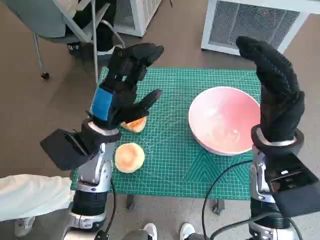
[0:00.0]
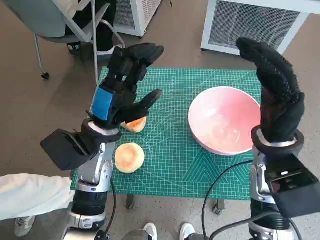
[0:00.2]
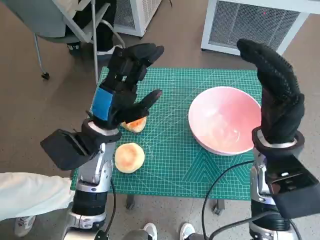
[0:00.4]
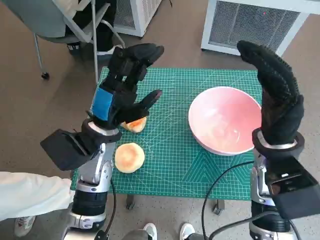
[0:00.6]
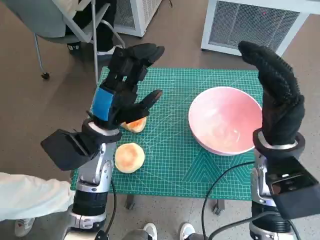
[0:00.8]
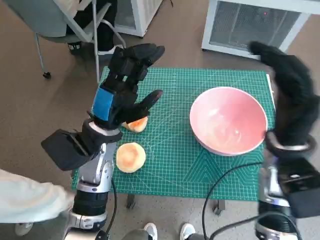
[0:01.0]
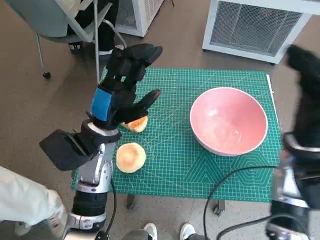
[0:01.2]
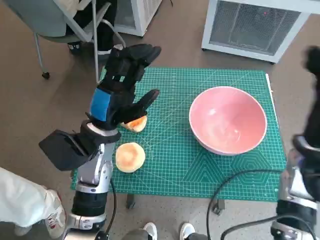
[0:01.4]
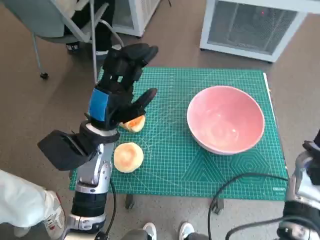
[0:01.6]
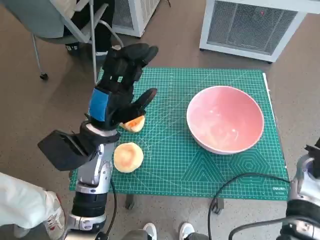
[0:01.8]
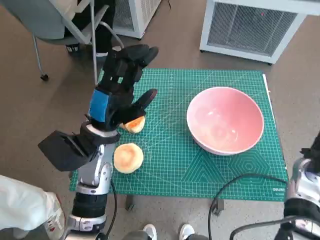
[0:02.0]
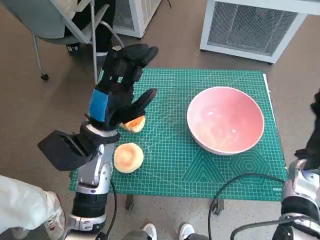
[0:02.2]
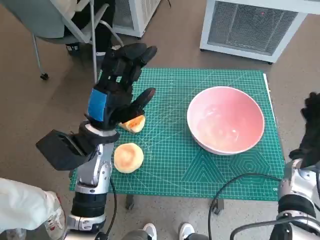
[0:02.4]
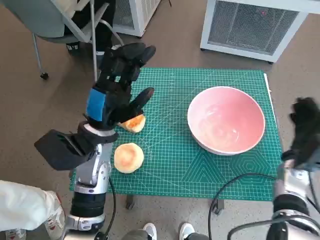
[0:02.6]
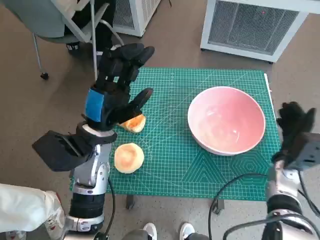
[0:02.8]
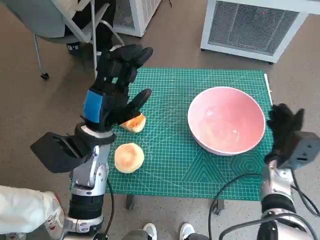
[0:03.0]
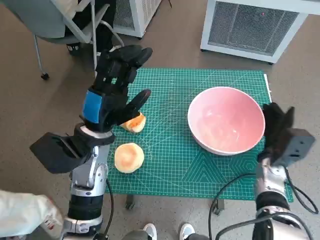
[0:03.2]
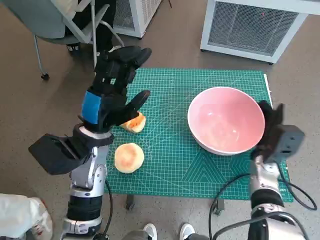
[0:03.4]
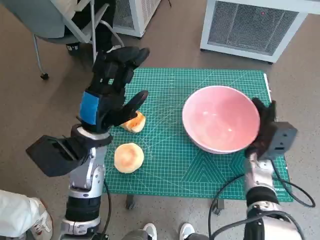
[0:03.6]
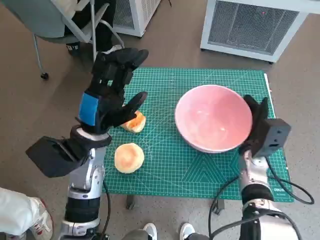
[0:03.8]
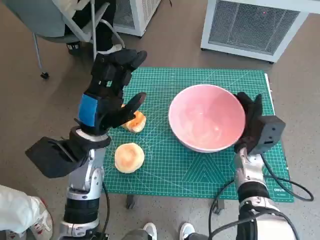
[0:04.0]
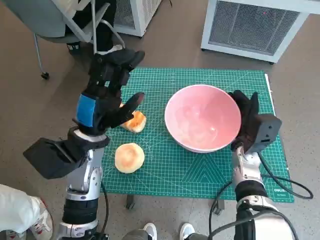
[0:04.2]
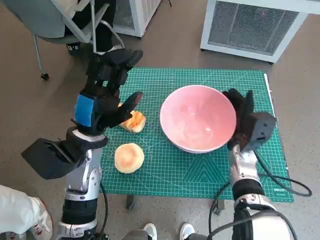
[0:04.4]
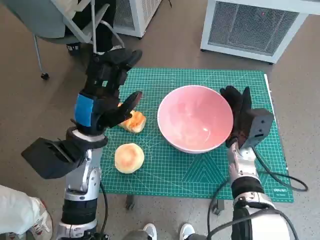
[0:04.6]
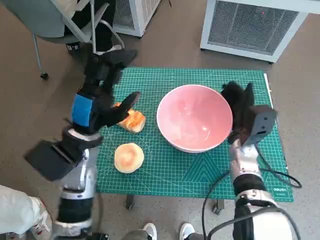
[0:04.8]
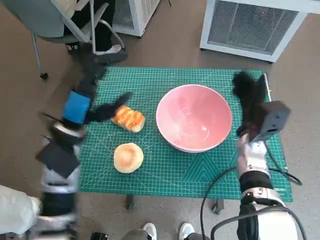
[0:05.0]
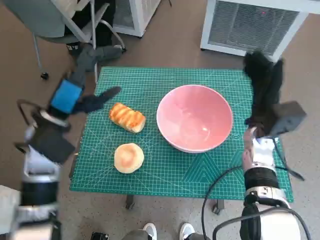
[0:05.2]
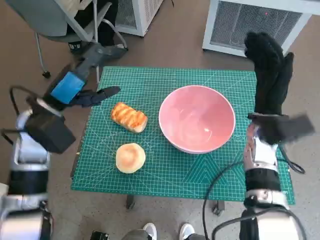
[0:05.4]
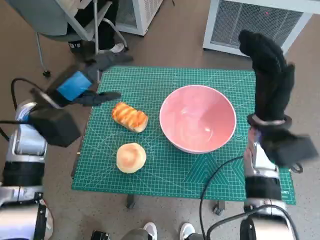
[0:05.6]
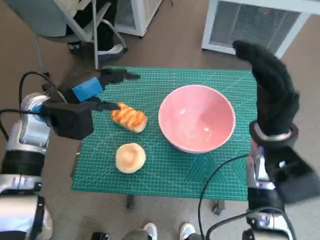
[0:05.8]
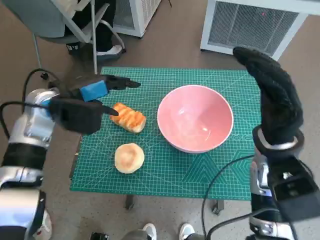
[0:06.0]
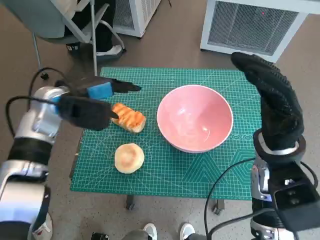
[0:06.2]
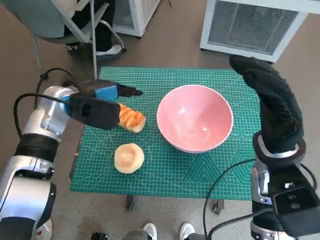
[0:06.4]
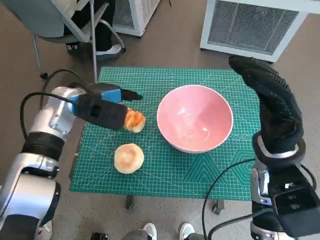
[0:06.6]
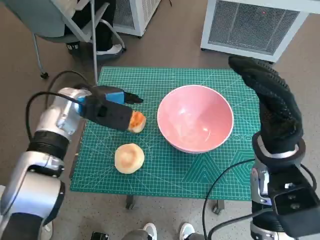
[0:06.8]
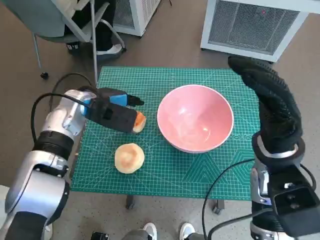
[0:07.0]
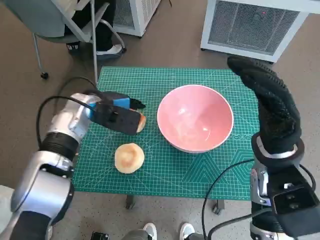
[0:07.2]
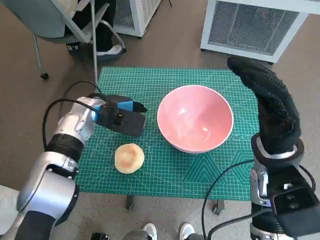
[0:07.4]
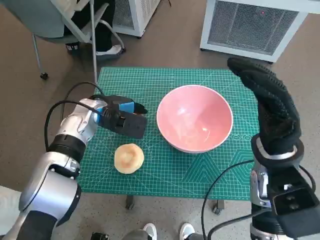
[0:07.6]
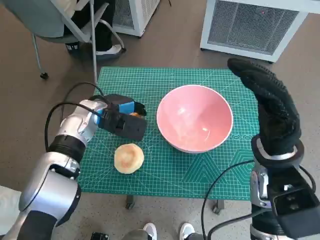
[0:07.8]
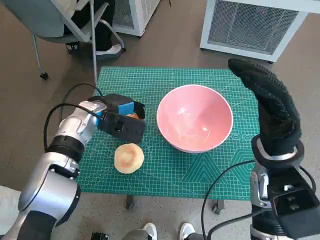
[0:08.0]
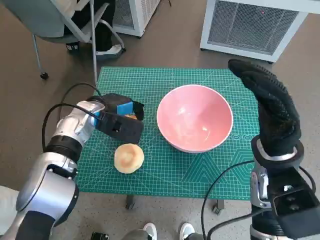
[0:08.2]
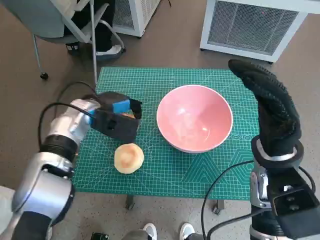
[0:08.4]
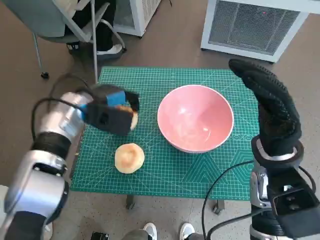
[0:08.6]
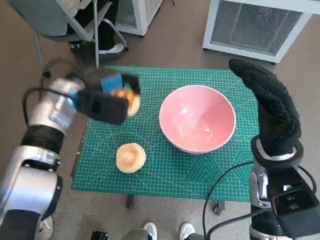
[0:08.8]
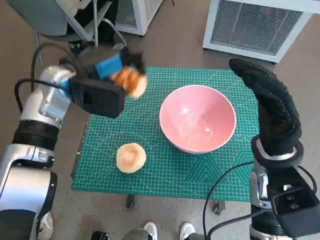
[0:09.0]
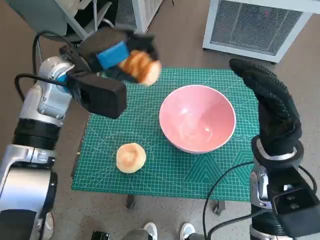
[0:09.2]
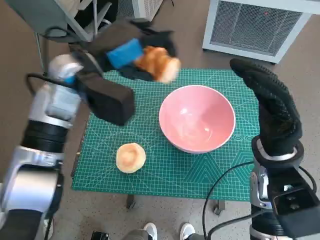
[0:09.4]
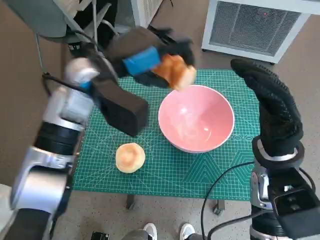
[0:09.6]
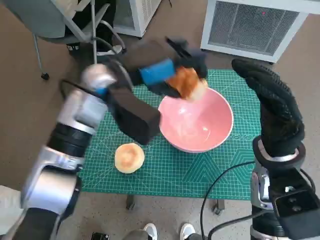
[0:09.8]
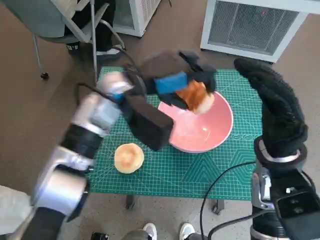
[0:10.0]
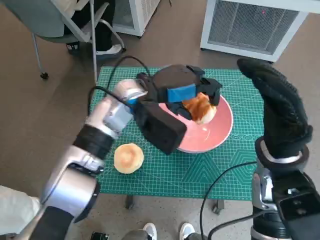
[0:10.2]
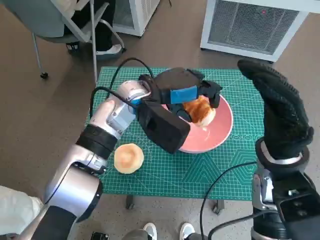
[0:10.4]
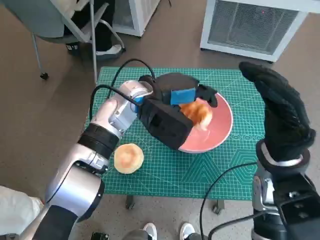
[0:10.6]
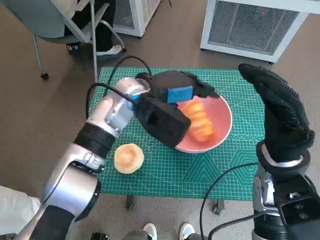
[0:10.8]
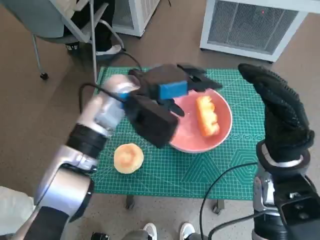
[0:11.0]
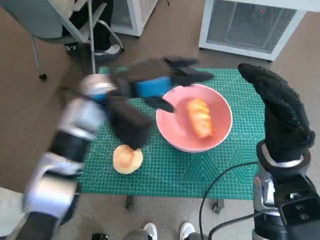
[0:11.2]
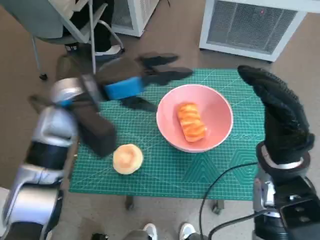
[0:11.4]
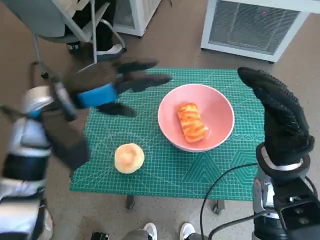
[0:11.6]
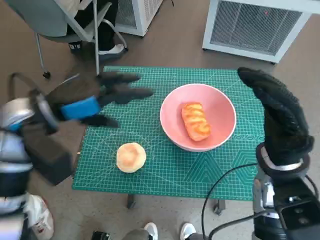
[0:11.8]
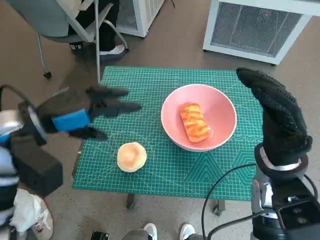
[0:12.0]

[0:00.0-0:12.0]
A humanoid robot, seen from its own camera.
Task of the whole recording: Push the bowl to the center of the table and put the bread into the bowl.
Step, 0:00.0 to 0:05.0: Move the pink bowl to the center of table with right hand.
Step, 0:05.2 to 0:08.2: Grasp the long bread with left hand.
Step, 0:08.4 to 0:11.4: Place the long bread in pink bowl with left hand.
0:01.6 to 0:03.0: The right hand heads downward, covering approximately 10 cm.
0:03.0 to 0:04.4: The right hand goes approximately 10 cm to the left.
0:04.4 to 0:06.0: The right hand is displaced upward by some 15 cm, while the left hand is displaced to the left and forward by some 10 cm.
0:06.0 to 0:07.6: The left hand goes some 10 cm downward and to the right.
0:07.6 to 0:09.0: The left hand goes about 10 cm upward.
0:09.0 to 0:10.4: The left hand shifts some 15 cm to the right.
0:10.4 to 0:12.0: The left hand is displaced to the left and backward by about 20 cm.

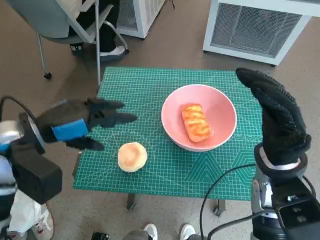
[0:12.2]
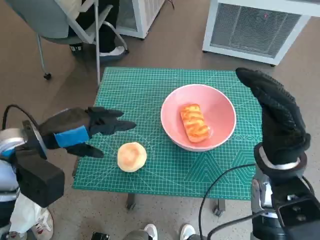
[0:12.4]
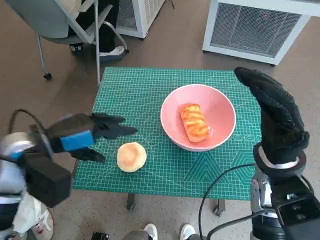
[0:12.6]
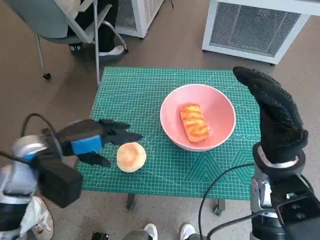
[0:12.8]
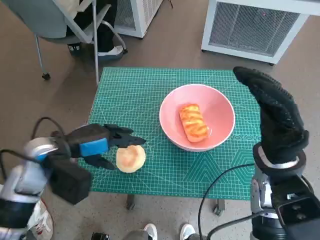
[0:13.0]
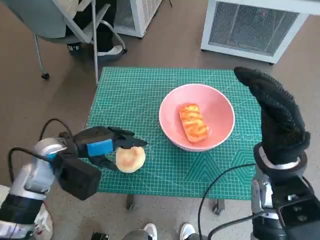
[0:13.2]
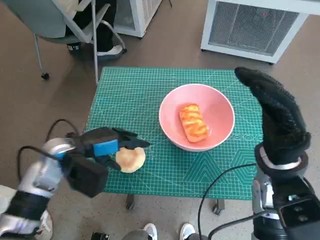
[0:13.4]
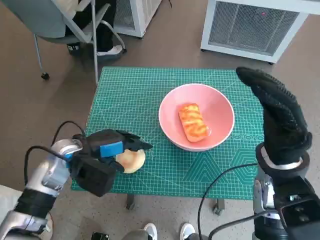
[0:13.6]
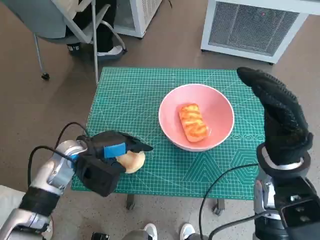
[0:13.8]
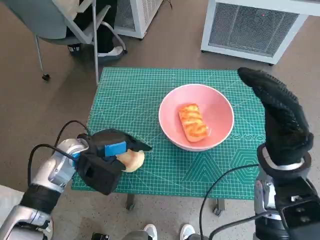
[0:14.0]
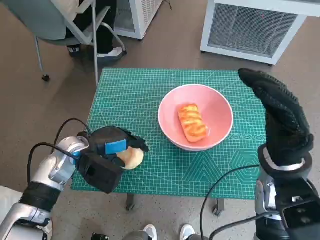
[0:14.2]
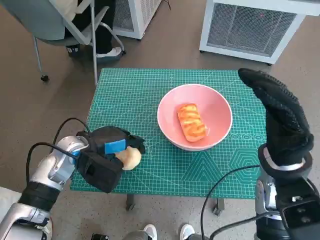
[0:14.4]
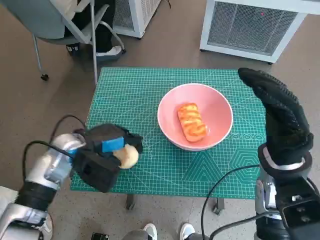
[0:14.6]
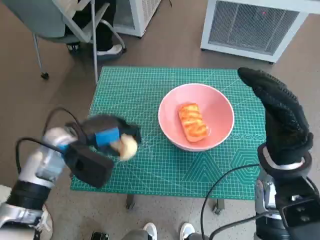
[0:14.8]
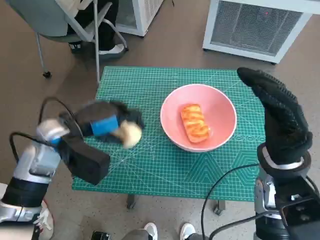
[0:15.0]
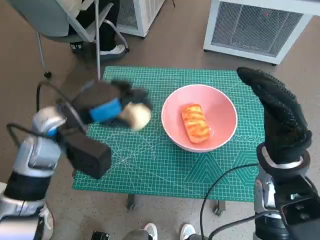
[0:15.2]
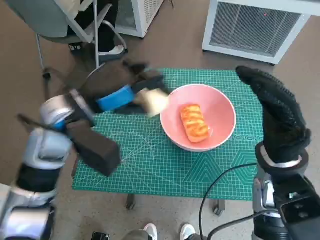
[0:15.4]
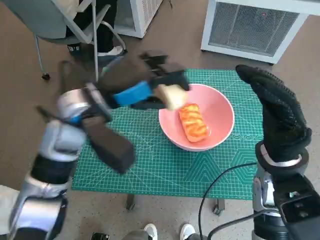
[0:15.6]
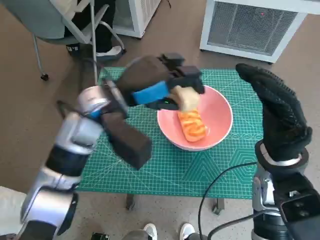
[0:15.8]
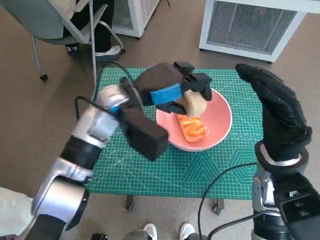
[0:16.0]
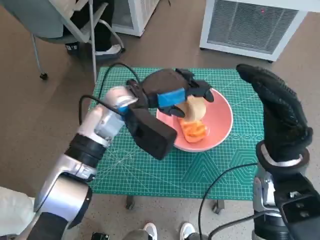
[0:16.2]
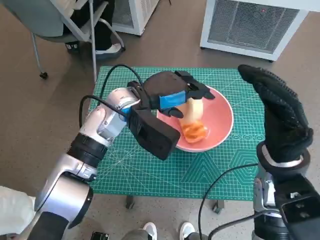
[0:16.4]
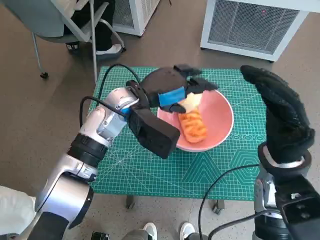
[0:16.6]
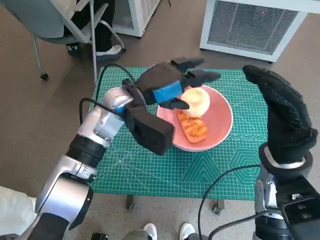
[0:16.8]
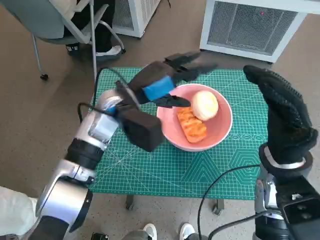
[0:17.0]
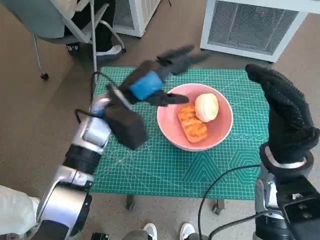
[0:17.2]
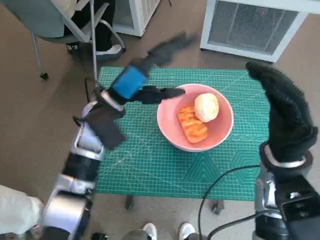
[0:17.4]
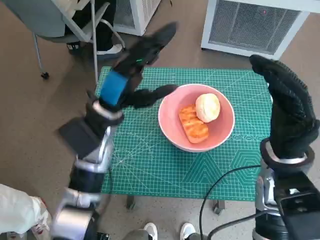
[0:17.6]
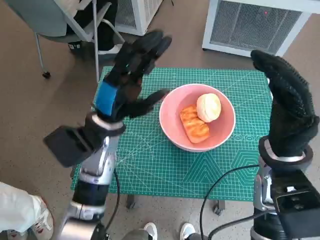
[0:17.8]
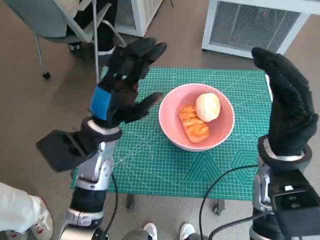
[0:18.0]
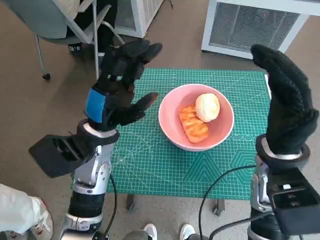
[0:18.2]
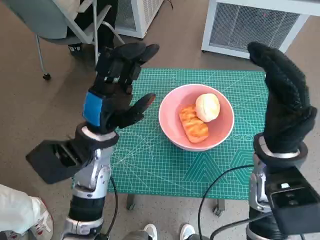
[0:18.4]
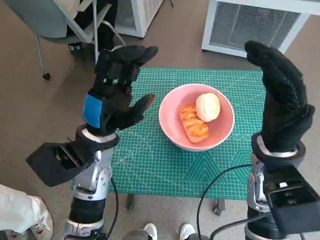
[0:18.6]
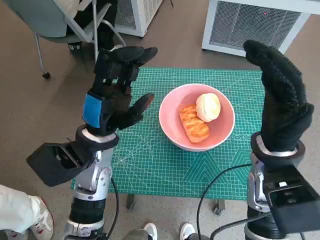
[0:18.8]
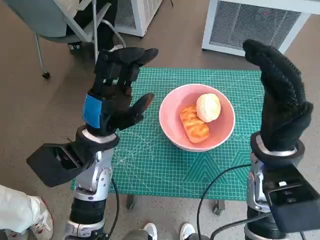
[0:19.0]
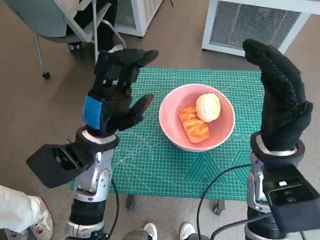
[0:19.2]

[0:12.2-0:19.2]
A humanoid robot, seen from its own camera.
Task of the whole recording: Push the bowl to the center of the table and put the bread into the bowl.
Step, 0:12.2 to 0:14.0: Grasp the round bread with left hand.
Step, 0:14.2 to 0:17.4: Place the round bread in pink bowl with left hand.
0:12.2 to 0:13.6: The left hand goes some 10 cm downward.
0:13.6 to 0:15.0: The left hand shifts roughly 5 cm upward.
0:15.0 to 0:16.4: The left hand travels to the right and forward by some 15 cm.
0:16.4 to 0:17.8: The left hand ends up approximately 5 cm from where it was.

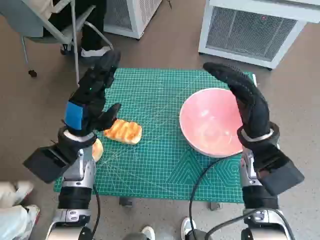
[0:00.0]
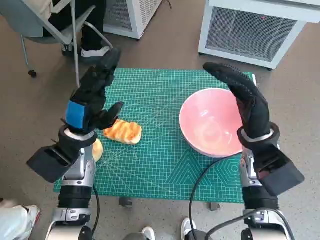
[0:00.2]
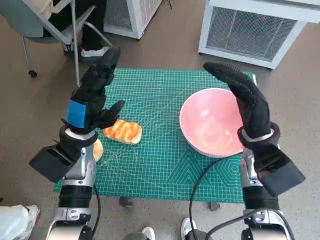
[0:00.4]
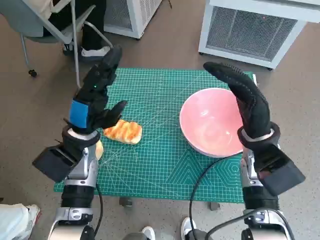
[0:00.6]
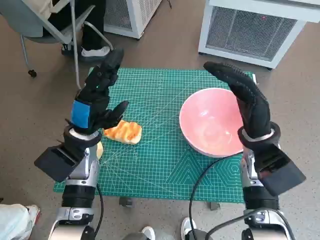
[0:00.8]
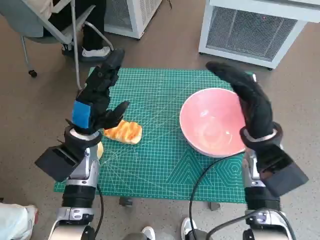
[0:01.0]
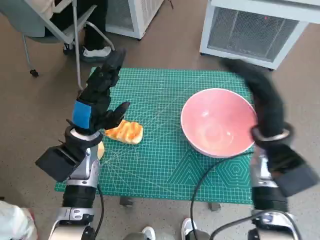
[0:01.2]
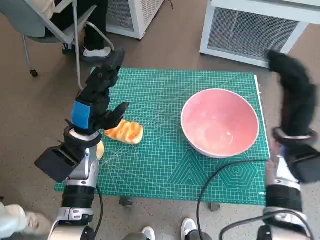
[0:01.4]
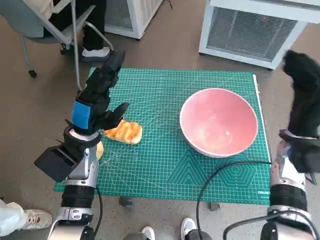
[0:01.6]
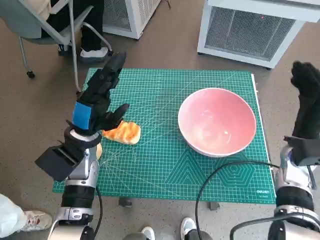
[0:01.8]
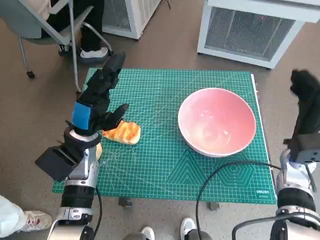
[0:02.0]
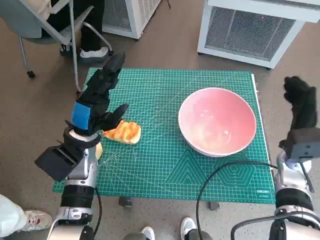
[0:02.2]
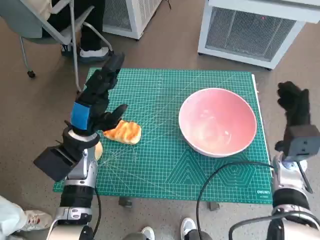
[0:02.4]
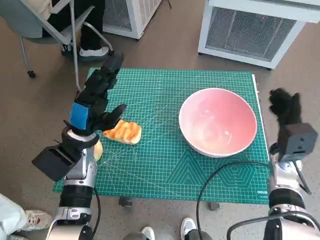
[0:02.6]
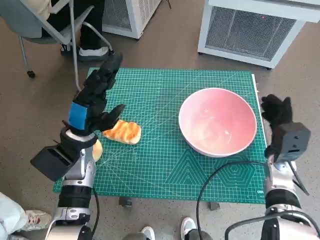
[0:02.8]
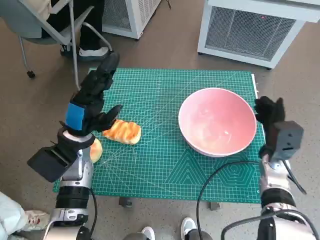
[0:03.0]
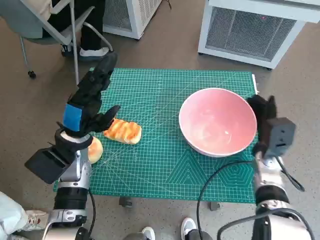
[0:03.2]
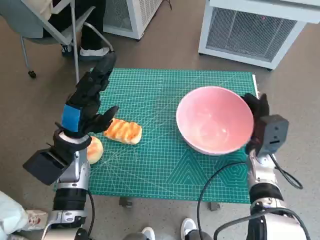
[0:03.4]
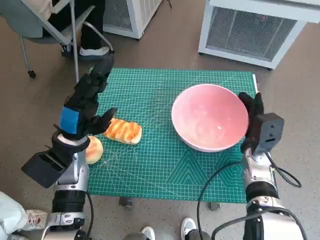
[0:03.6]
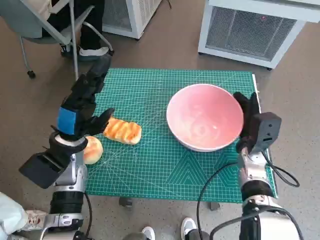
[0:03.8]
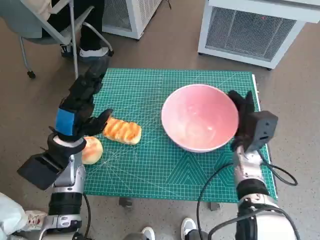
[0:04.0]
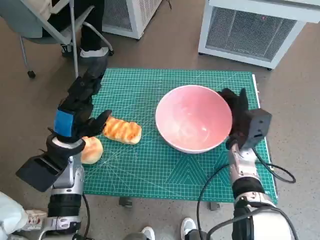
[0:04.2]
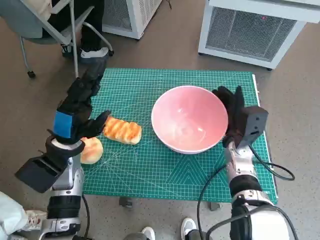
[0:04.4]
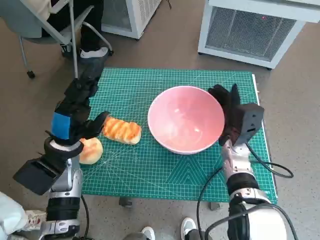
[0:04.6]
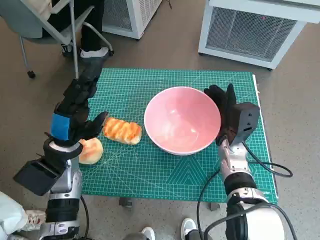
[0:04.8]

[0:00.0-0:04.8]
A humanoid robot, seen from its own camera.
Task of the whole recording: Push the bowl to the center of the table and put the bread into the bowl.
0:01.6 to 0:03.2: The right hand goes roughly 10 cm downward.
0:03.2 to 0:04.8: The right hand heads to the left, covering approximately 10 cm.
